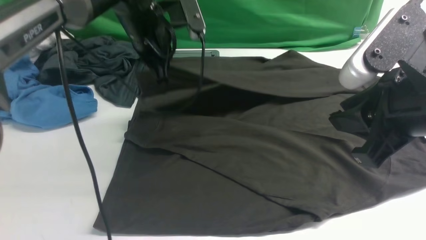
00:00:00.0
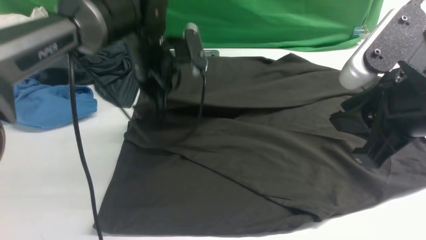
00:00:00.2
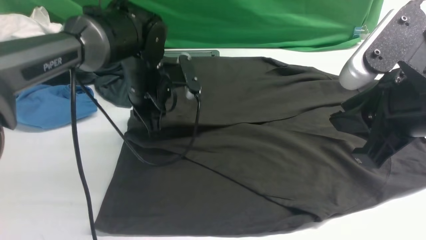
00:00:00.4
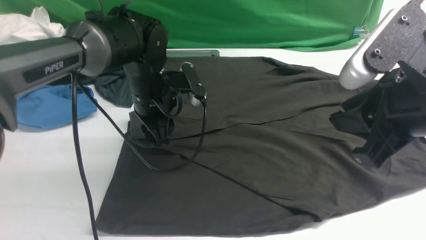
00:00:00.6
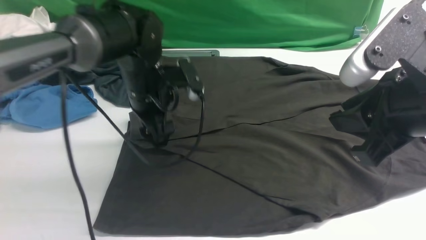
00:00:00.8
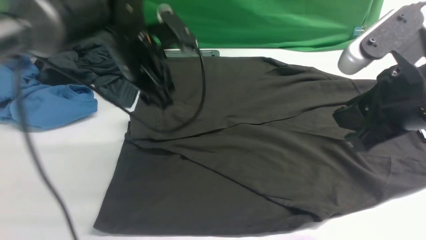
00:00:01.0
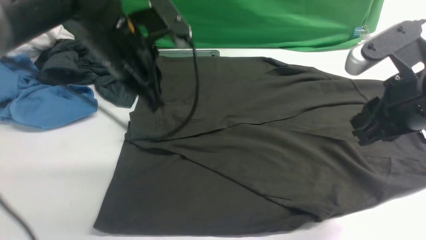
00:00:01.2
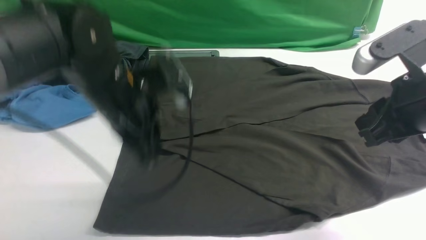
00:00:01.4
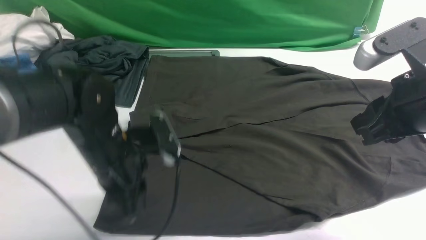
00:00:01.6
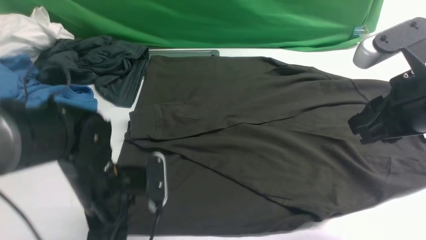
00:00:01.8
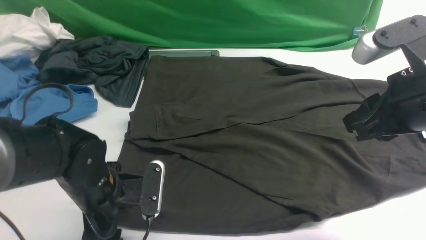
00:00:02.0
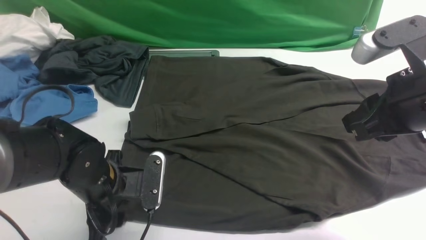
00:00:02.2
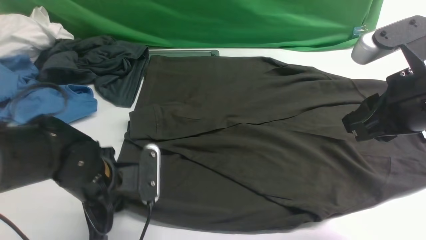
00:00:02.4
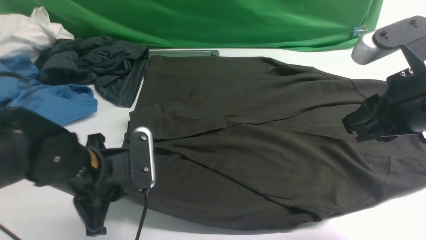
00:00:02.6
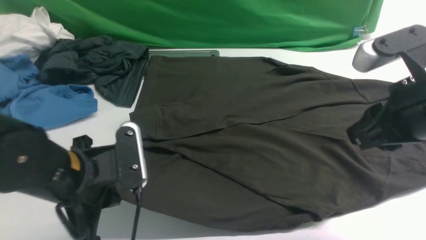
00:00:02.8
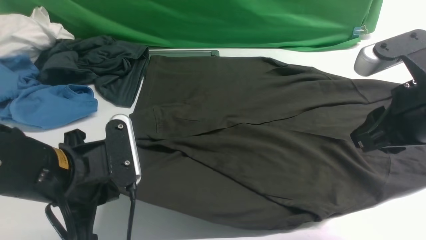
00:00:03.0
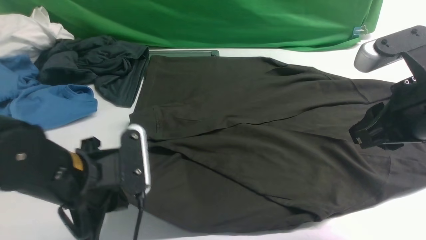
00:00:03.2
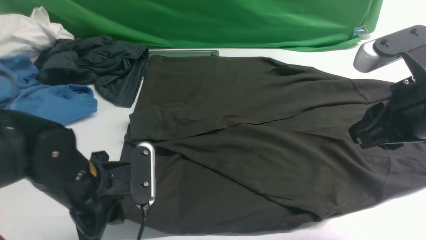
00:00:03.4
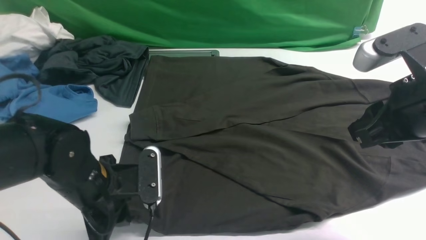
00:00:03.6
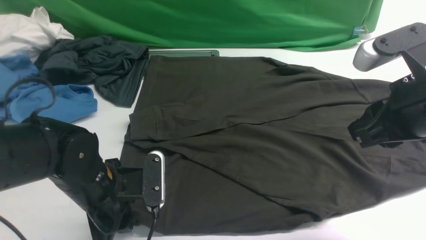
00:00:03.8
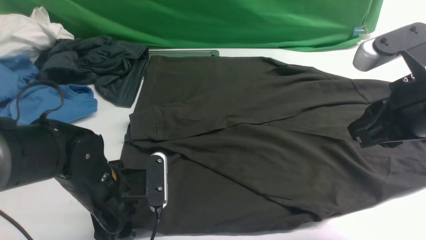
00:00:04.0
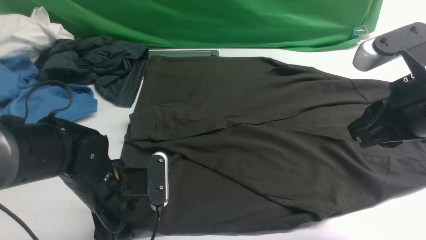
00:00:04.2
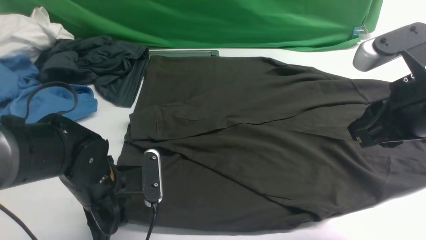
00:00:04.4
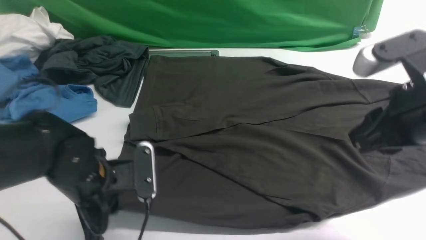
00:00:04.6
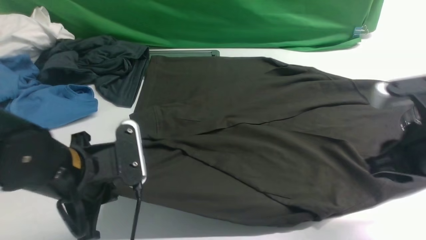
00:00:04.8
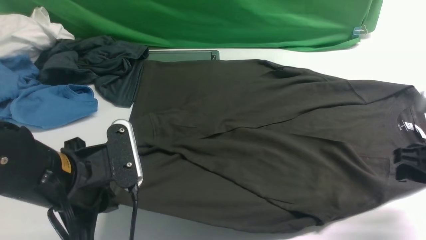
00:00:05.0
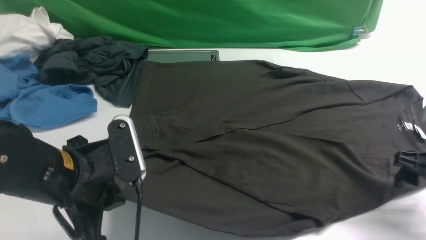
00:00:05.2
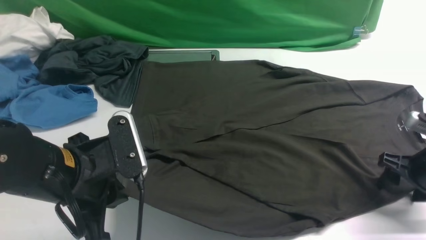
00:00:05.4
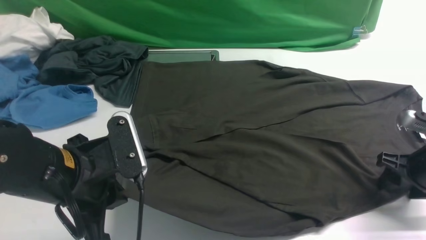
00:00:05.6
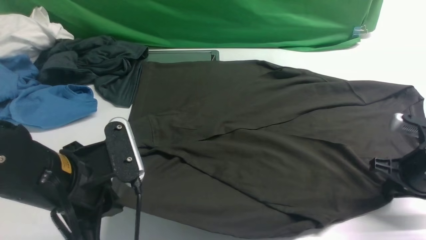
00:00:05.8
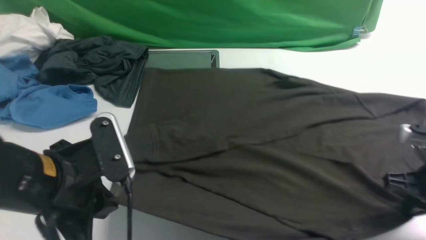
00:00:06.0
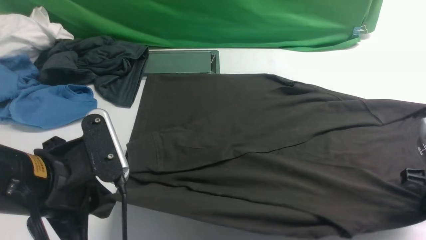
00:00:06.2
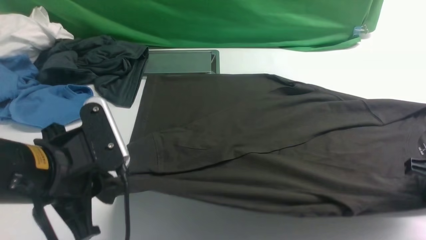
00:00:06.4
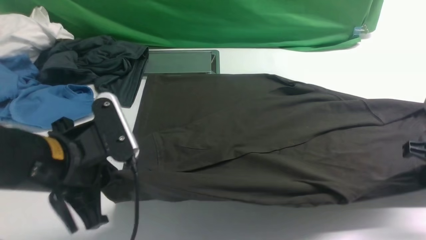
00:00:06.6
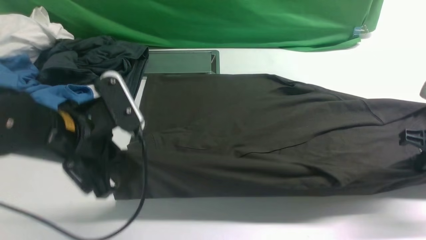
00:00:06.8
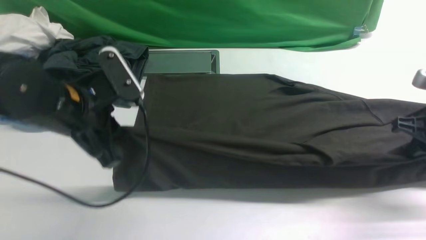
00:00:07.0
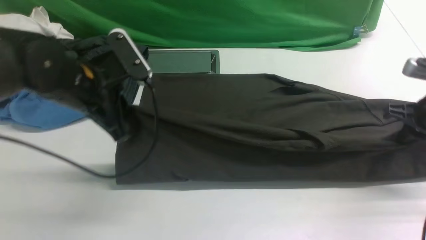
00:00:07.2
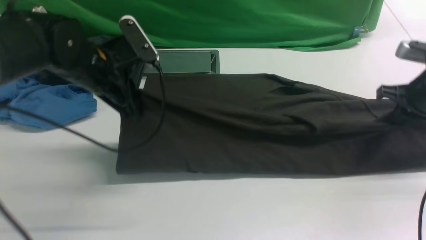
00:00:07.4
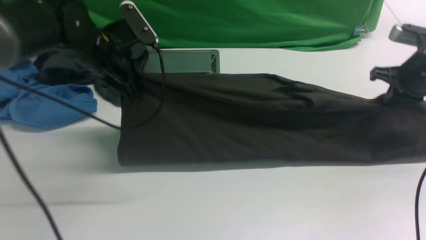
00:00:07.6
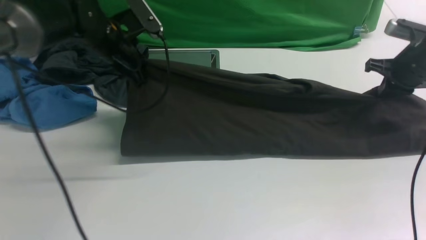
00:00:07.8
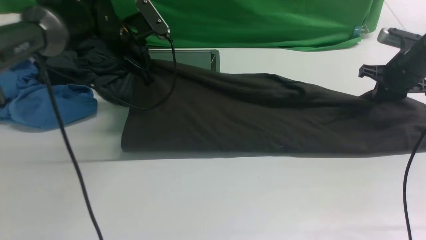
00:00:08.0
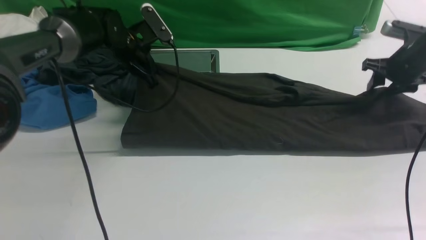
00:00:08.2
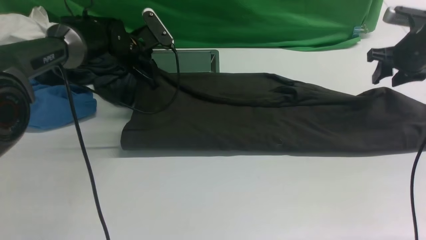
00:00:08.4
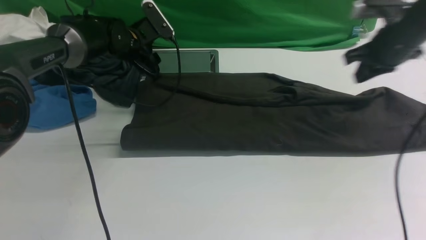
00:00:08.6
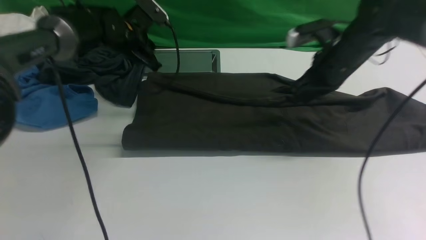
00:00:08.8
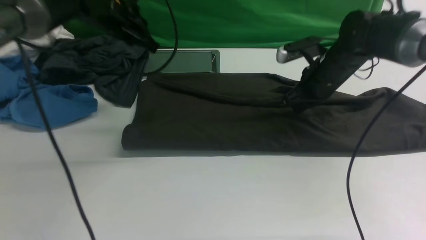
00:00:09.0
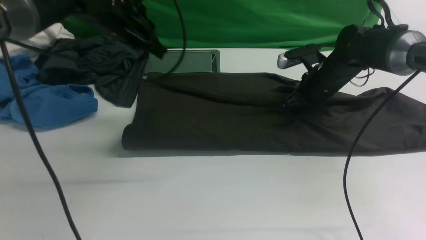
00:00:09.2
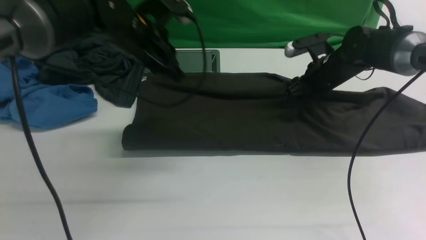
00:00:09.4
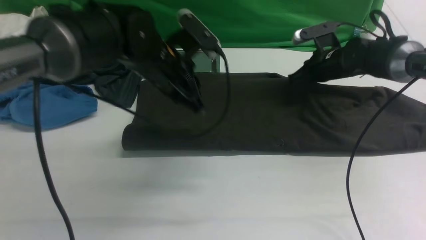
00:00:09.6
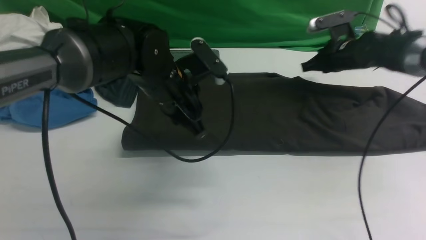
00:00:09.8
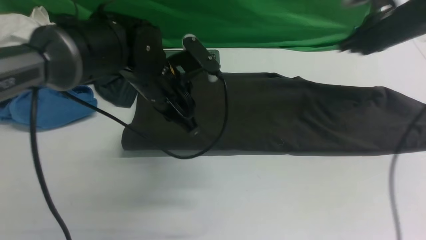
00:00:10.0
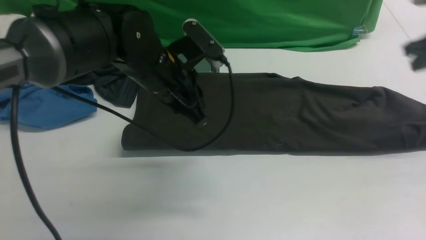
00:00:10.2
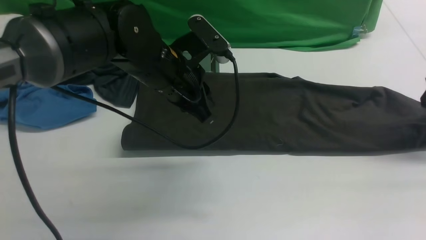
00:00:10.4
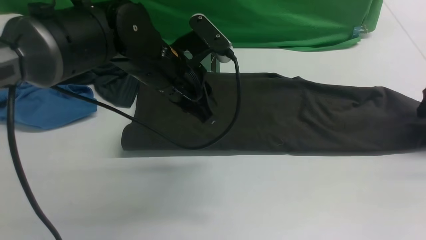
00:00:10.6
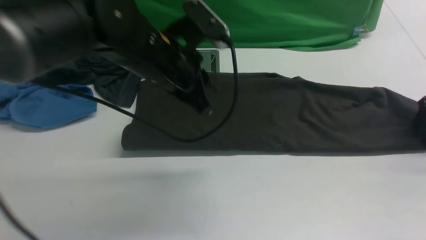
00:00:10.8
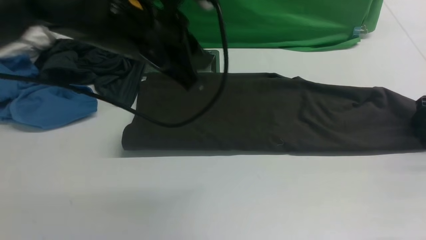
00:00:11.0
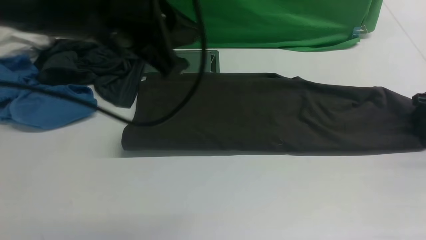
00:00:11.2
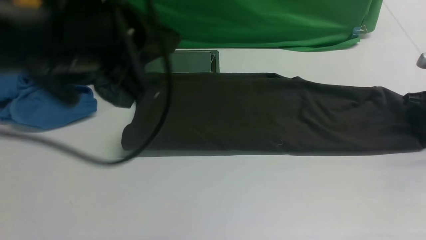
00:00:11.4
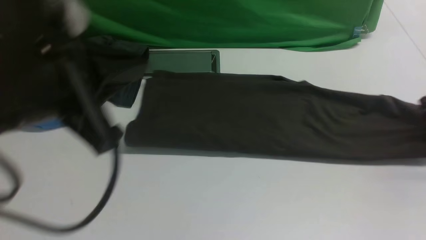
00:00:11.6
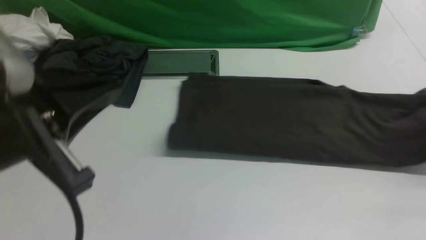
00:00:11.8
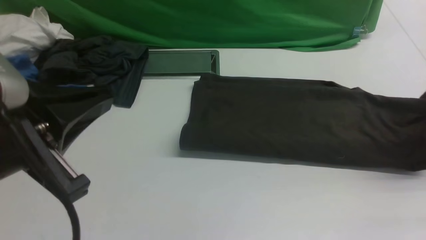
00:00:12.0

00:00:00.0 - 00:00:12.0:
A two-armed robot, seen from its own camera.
Step, 00:00:00.0 - 00:00:01.0: use the left arm to drag and drop the cuff onto the cuff closest to the left arm.
Step, 00:00:01.2 - 00:00:06.2: use both arms simultaneously to clamp the lower edge of the clothing fabric.
Step, 00:00:06.4 - 00:00:10.0: use both arms to drag the lower edge of the fabric forward and fold it over the upper edge.
Step, 00:00:10.2 - 00:00:11.4: use the right arm to clamp the right edge of the fabric.
00:00:00.0 - 00:00:01.6: The right gripper shifts by roughly 5 cm, while the left gripper is displaced backward and downward by about 20 cm, and opens.
00:00:01.6 - 00:00:03.0: The left gripper goes about 5 cm backward, and closes its fingers.
00:00:03.0 - 00:00:04.4: The left gripper travels downward by roughly 5 cm, and opens.
00:00:04.4 - 00:00:06.0: The right gripper shifts some 15 cm downward and to the right, and closes its fingers; the left gripper goes approximately 10 cm upward and backward, and closes its fingers.
00:00:06.0 - 00:00:07.6: The two grippers go roughly 20 cm forward.
00:00:07.6 - 00:00:09.0: The left gripper shifts roughly 5 cm forward, and opens and closes again, while the right gripper shifts about 15 cm to the left, and opens and closes again.
00:00:09.0 - 00:00:10.4: The left gripper travels backward and to the right by about 15 cm. Meanwhile the right gripper is displaced to the right by roughly 20 cm, and opens its fingers.
00:00:10.4 - 00:00:12.0: The left gripper travels backward, to the left and upward by roughly 25 cm, while the right gripper heads upward, covering approximately 10 cm, and closes its fingers.

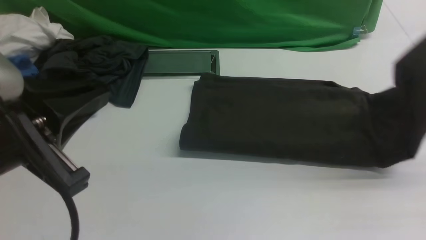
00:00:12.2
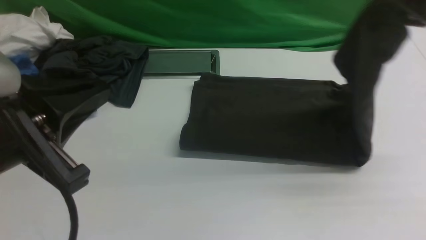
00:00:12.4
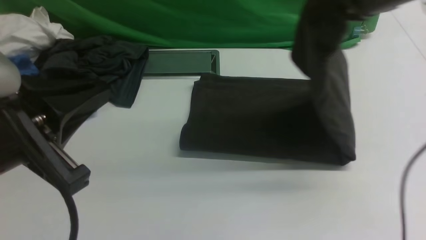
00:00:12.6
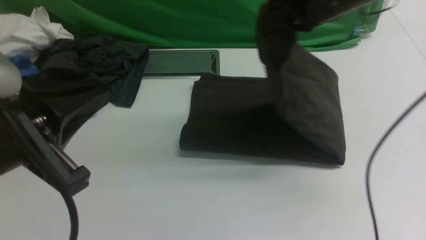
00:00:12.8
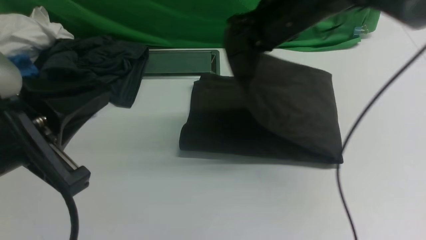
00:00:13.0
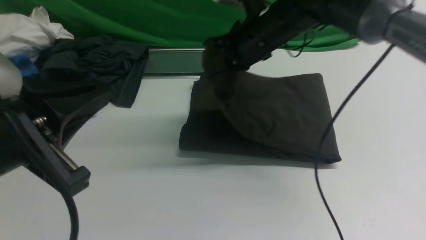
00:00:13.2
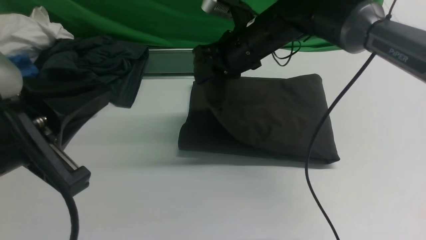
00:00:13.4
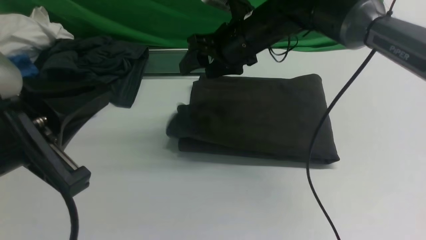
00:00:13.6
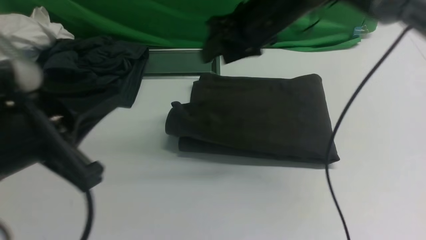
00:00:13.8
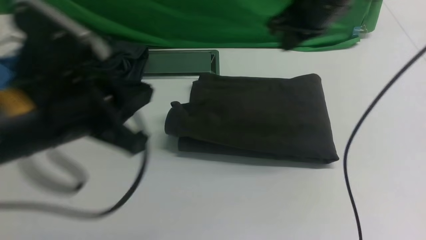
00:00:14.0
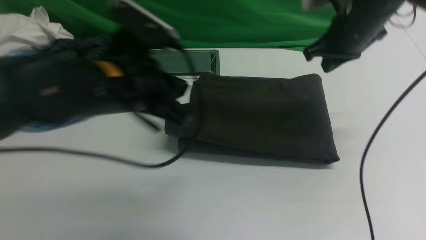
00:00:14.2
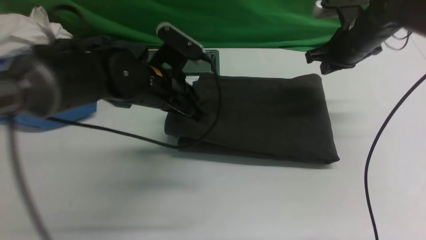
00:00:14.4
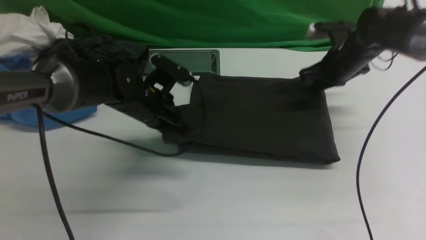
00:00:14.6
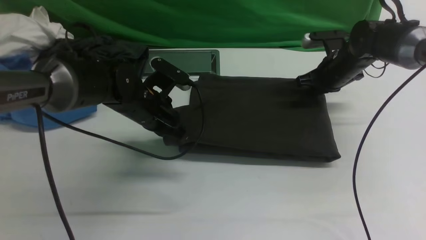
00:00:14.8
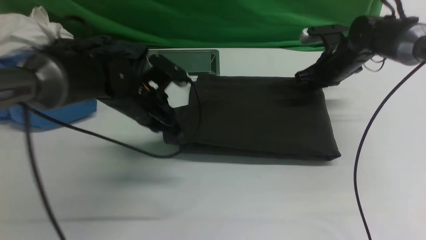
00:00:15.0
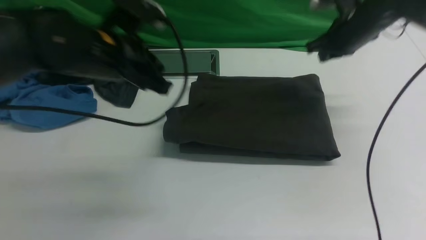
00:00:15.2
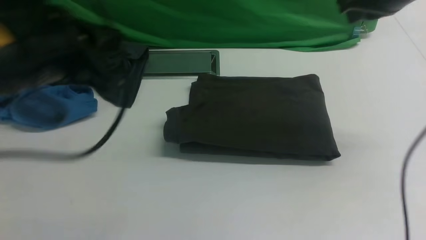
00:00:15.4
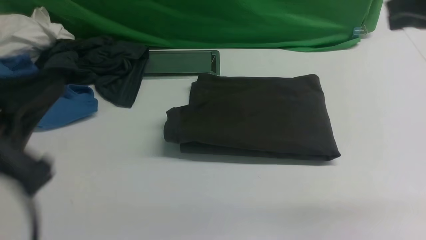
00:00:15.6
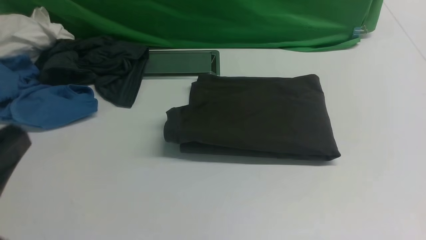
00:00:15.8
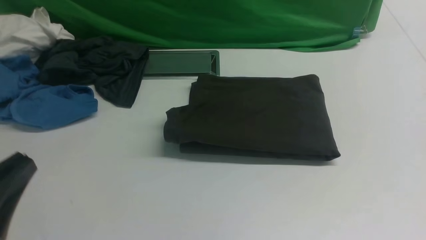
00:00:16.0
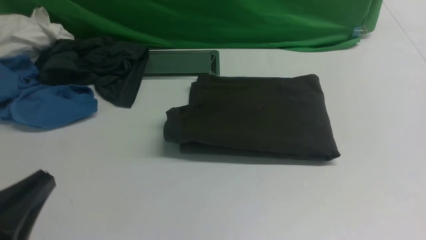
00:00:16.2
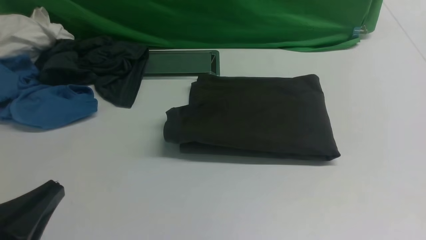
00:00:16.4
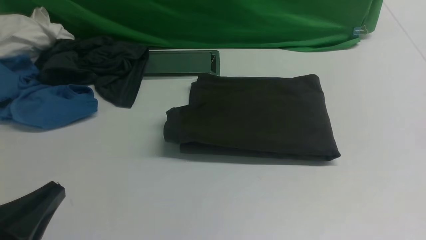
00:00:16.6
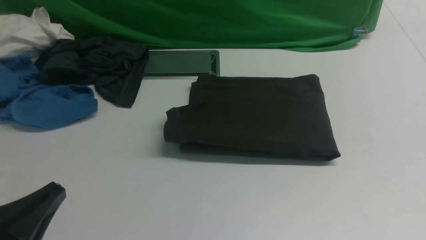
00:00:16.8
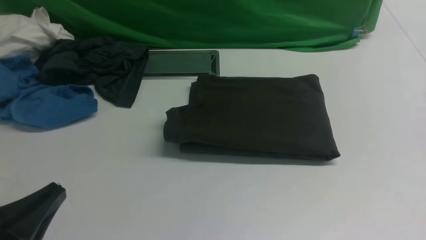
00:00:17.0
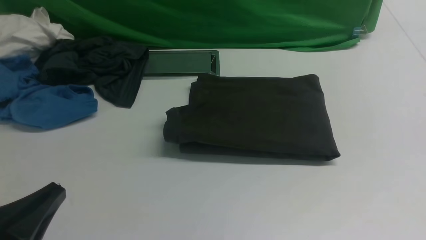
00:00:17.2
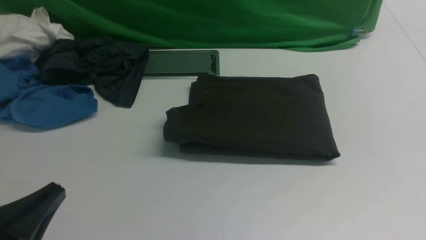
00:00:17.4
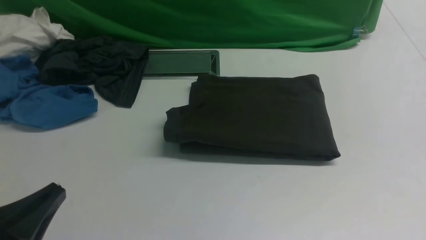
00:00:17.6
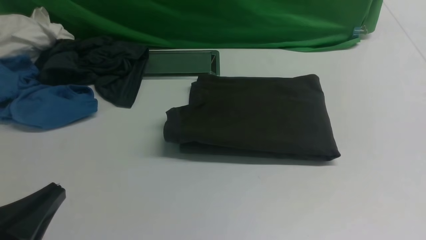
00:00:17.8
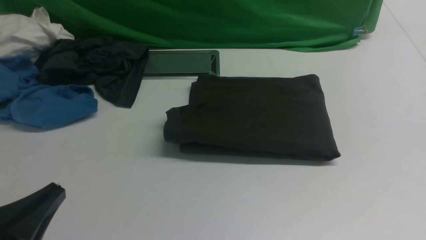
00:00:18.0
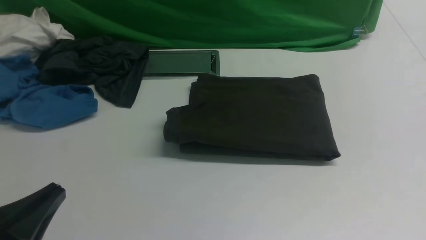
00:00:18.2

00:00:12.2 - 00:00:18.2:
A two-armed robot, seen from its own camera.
Step, 00:00:12.2 - 00:00:14.0: use the right arm to drag the right edge of the fabric to the left and folds it over the left edge.
00:00:12.2 - 00:00:13.8: The right gripper is displaced to the left by approximately 25 cm, and opens up.
00:00:13.8 - 00:00:15.2: The right gripper goes some 15 cm to the right, travels downward and back again, about 15 cm each way, and closes its fingers. The left gripper moves forward, roughly 15 cm.
00:00:15.2 - 00:00:16.6: The right gripper moves backward, about 40 cm, while the left gripper is displaced backward by roughly 25 cm.
